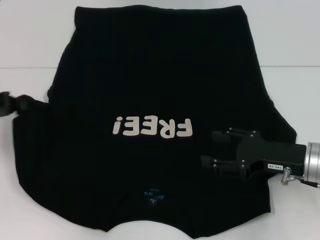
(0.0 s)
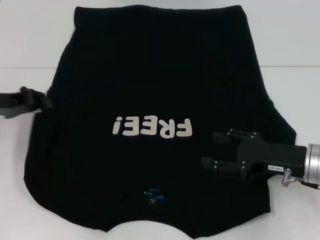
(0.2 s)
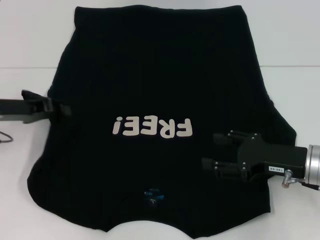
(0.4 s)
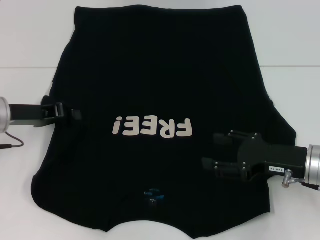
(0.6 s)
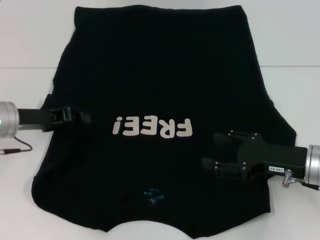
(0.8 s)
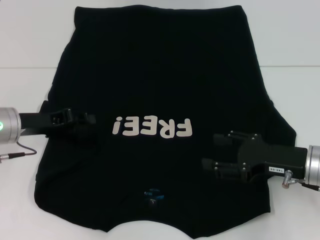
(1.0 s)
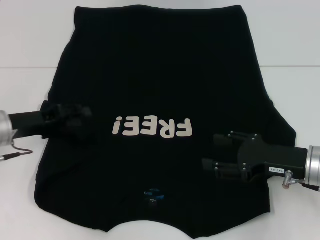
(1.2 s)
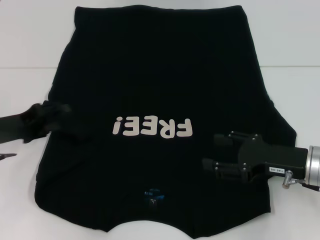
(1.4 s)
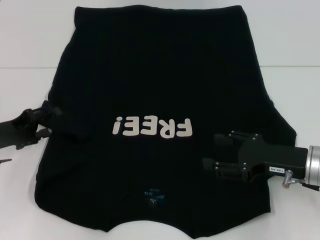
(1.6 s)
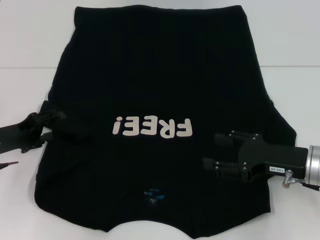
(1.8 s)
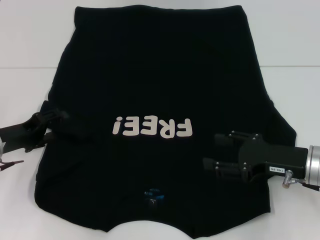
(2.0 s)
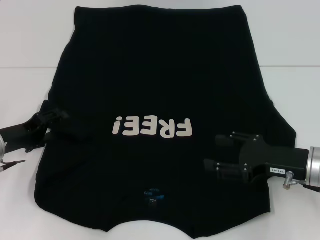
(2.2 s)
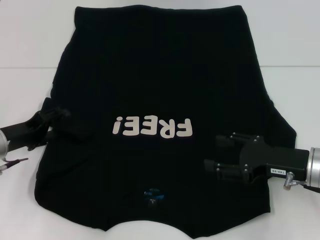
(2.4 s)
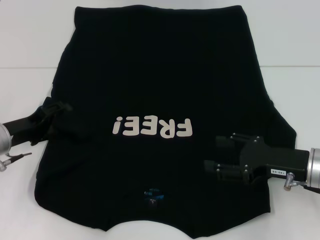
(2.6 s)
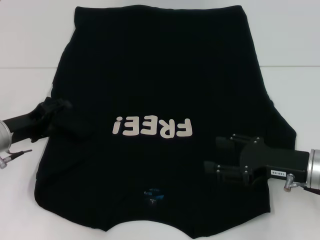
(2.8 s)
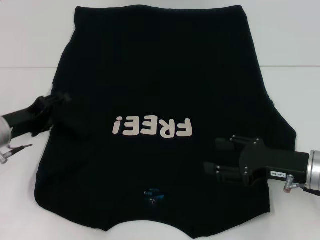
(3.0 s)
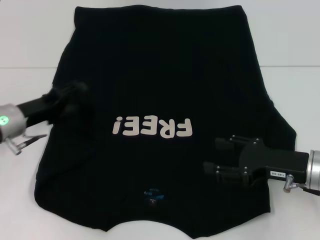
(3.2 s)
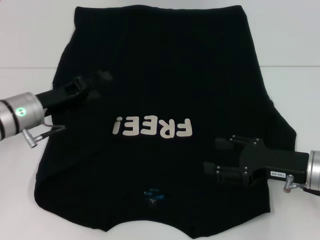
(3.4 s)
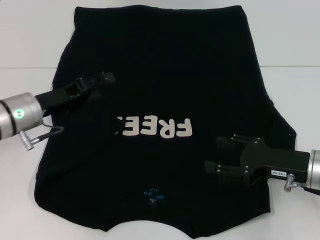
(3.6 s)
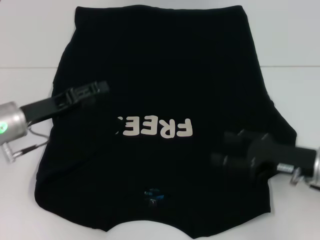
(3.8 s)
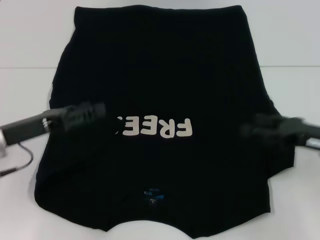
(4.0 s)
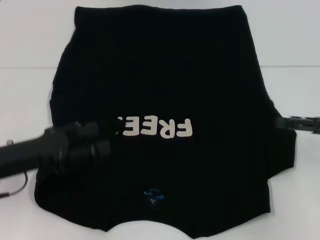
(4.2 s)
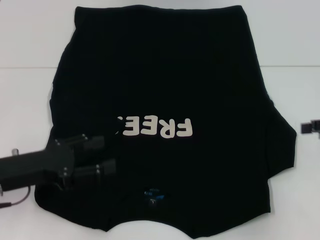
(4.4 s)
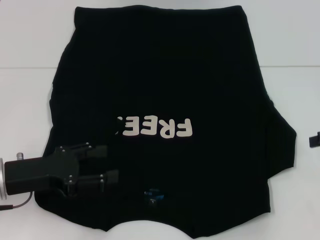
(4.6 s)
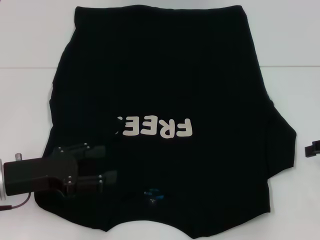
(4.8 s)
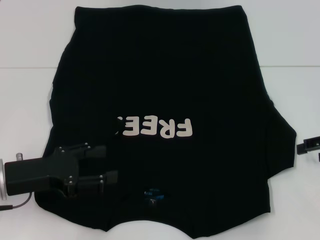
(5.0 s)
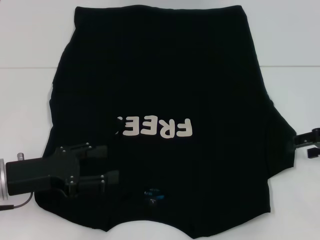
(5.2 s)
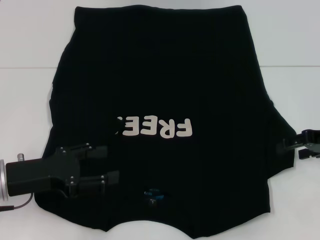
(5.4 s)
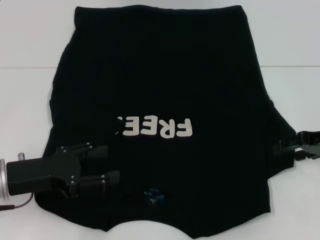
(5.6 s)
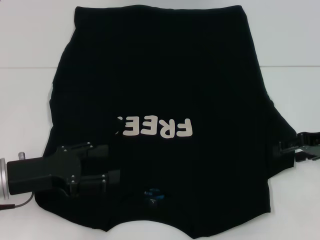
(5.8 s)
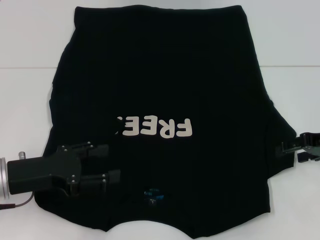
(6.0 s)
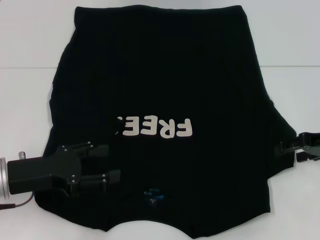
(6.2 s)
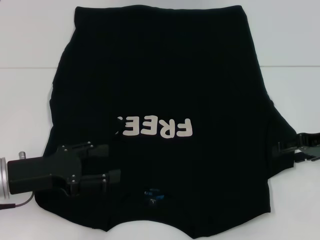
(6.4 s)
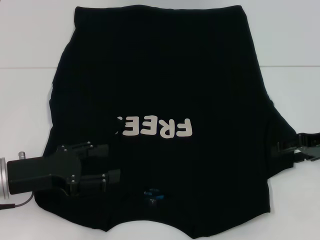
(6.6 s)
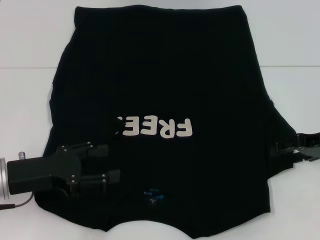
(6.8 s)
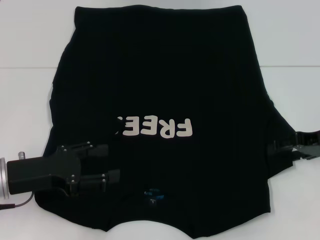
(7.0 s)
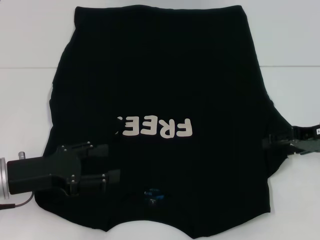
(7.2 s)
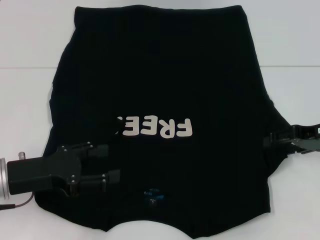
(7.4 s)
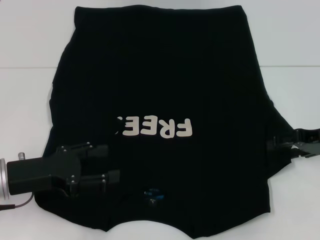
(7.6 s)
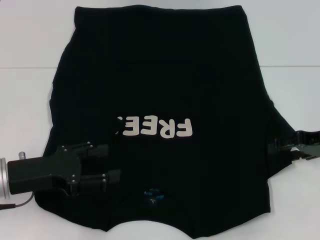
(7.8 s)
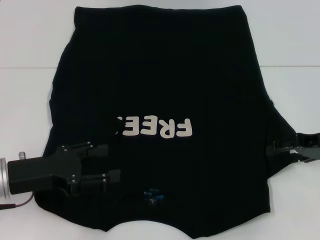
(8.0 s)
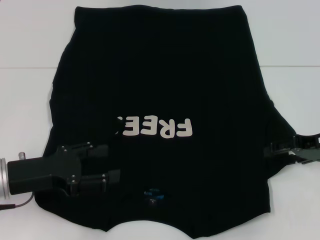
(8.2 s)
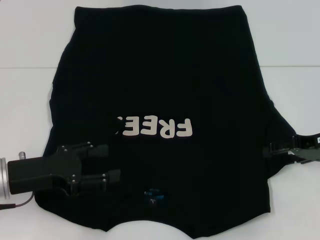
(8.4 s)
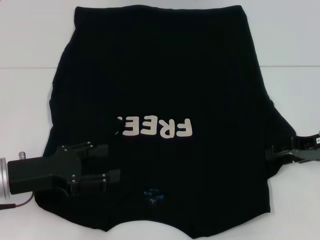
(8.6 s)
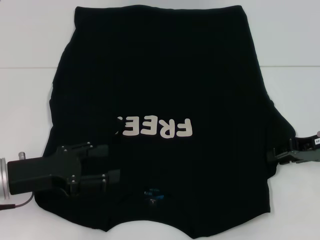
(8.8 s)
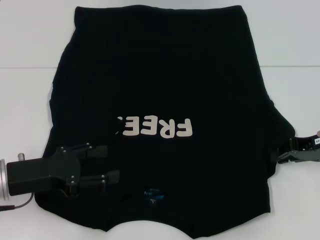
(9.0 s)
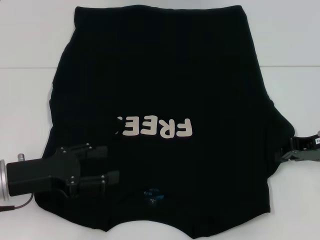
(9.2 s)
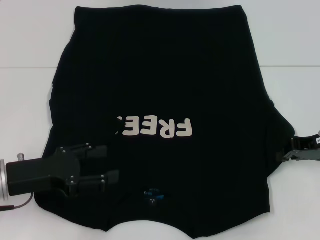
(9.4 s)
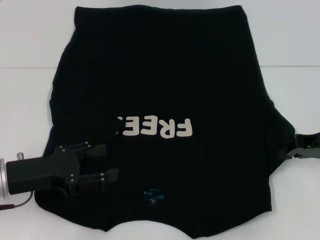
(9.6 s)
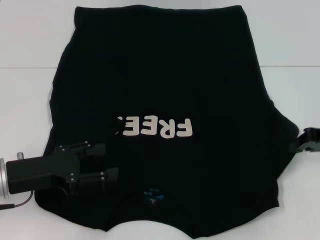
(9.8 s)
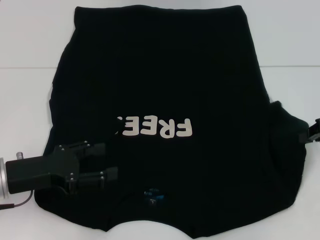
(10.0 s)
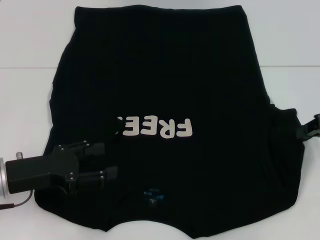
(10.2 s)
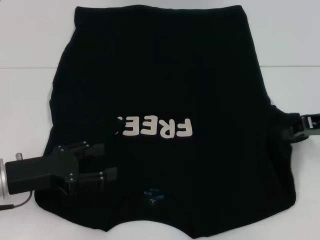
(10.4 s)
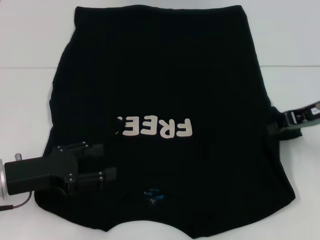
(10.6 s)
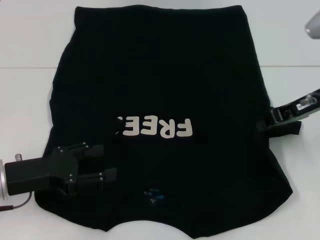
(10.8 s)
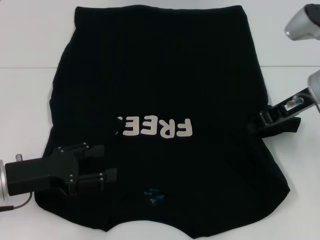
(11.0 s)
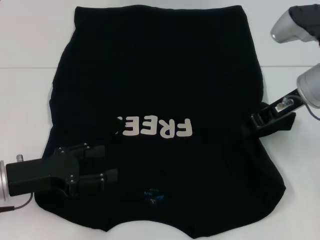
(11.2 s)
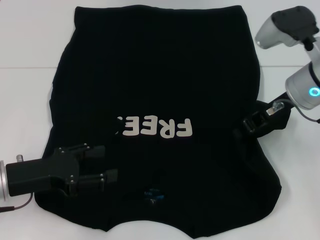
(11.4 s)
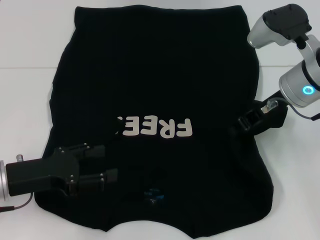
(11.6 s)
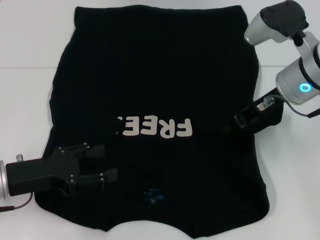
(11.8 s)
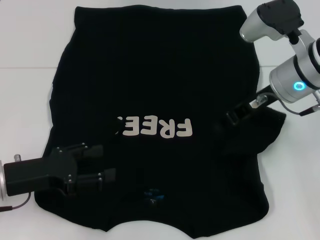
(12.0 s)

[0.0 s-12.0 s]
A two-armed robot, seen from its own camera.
Step, 0.0 to 3.6 s: Fold the bottom left sleeve with your left hand.
0.0 to 1.6 s: The left gripper heads downward, covering about 5 cm, and opens its fingers.
1.6 to 3.0 s: There are only small adjustments of the grippers.
3.0 to 4.4 s: The right gripper is displaced to the right and upward by approximately 15 cm. Meanwhile the left gripper goes roughly 10 cm backward.
4.4 to 6.0 s: The right gripper changes place by some 5 cm.
6.0 to 7.6 s: The grippers make only small movements.
7.6 to 9.0 s: The right gripper closes its fingers.
9.0 to 10.4 s: The right gripper shifts about 5 cm upward, and closes its fingers.
10.4 to 12.0 s: The right gripper moves to the left, about 15 cm.

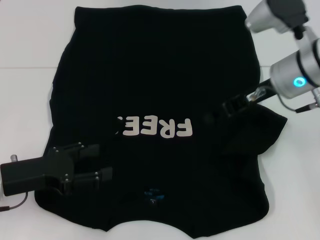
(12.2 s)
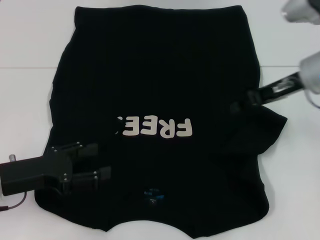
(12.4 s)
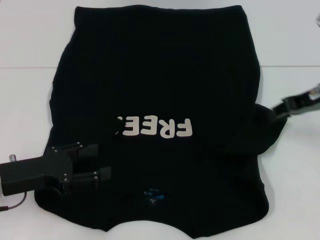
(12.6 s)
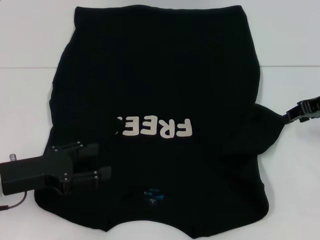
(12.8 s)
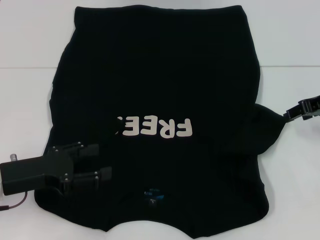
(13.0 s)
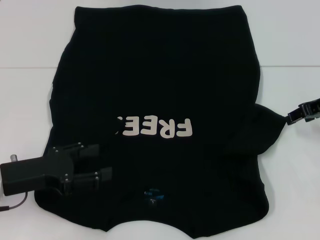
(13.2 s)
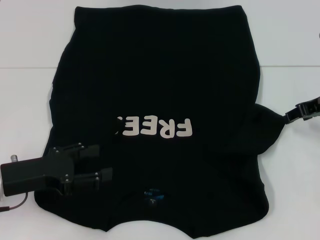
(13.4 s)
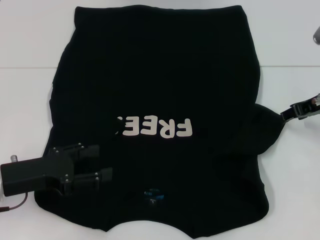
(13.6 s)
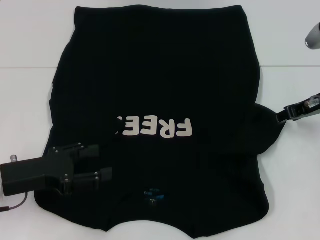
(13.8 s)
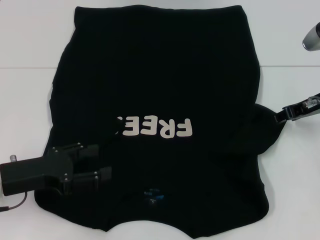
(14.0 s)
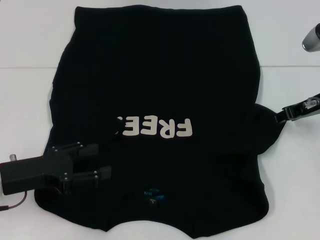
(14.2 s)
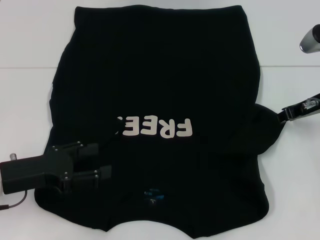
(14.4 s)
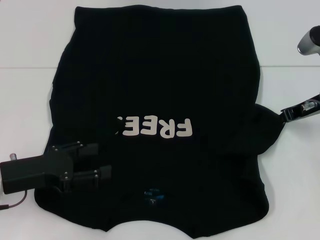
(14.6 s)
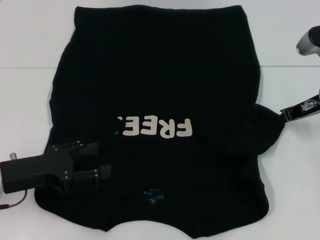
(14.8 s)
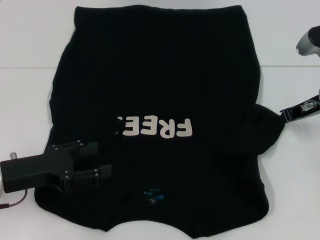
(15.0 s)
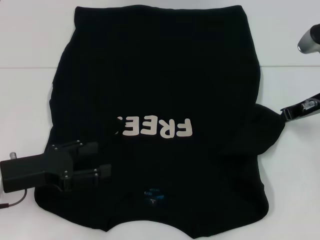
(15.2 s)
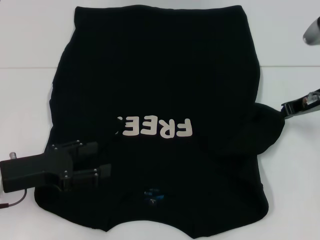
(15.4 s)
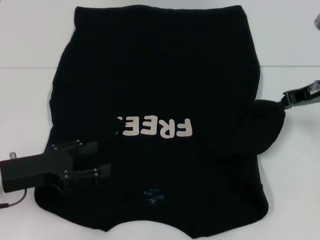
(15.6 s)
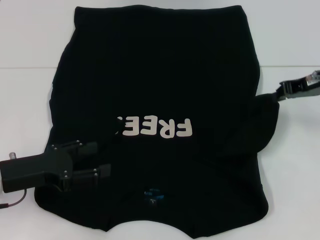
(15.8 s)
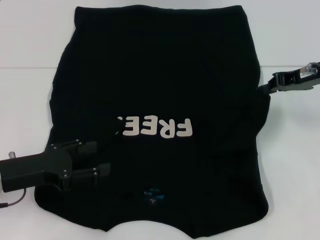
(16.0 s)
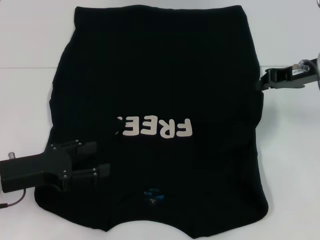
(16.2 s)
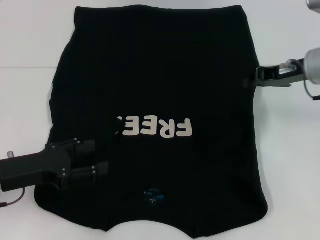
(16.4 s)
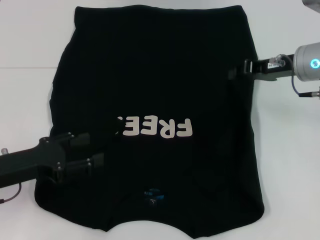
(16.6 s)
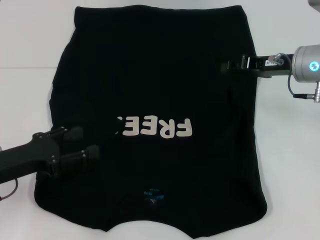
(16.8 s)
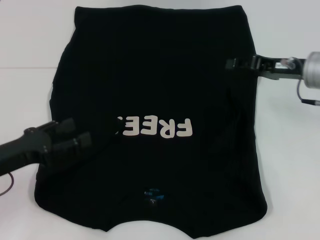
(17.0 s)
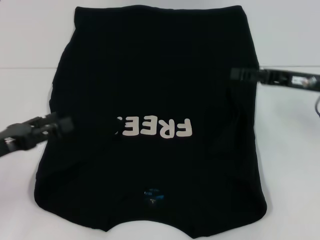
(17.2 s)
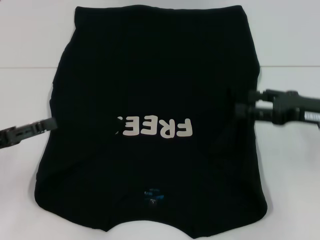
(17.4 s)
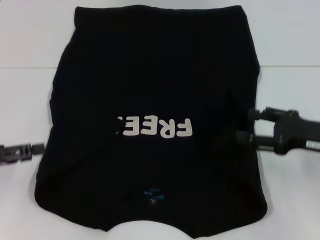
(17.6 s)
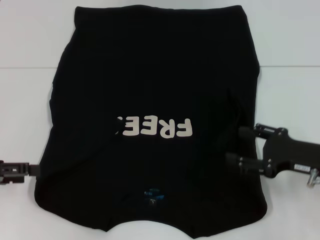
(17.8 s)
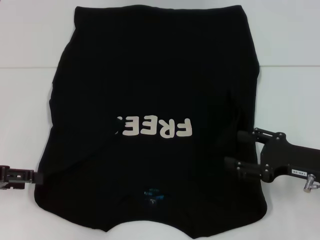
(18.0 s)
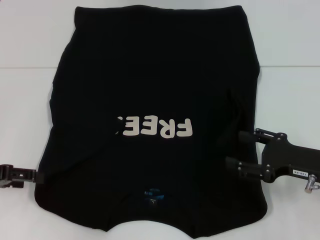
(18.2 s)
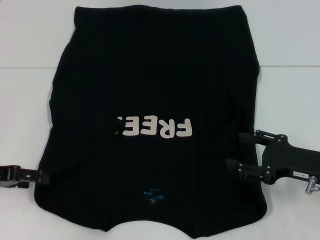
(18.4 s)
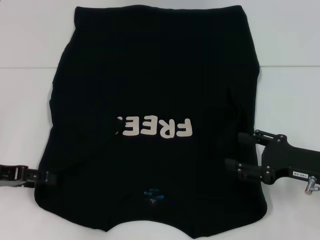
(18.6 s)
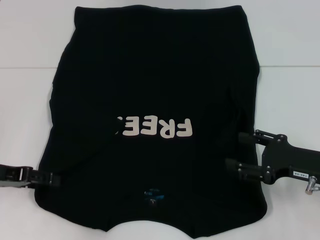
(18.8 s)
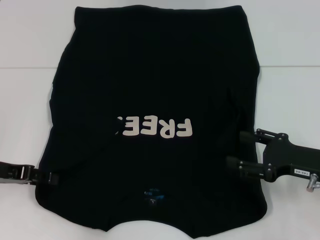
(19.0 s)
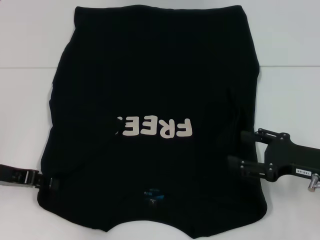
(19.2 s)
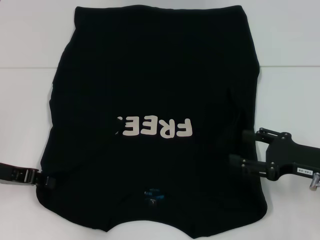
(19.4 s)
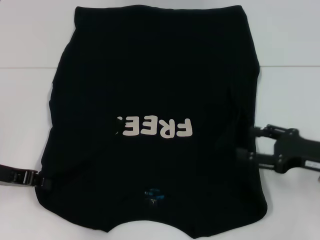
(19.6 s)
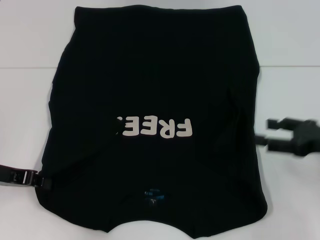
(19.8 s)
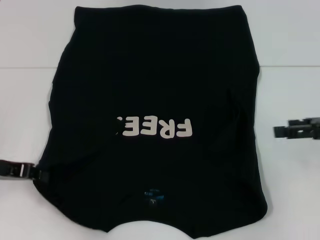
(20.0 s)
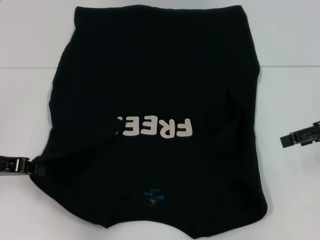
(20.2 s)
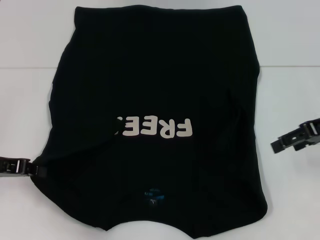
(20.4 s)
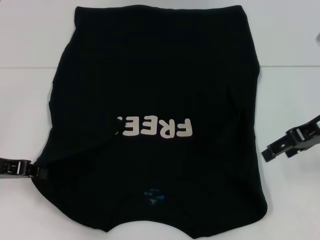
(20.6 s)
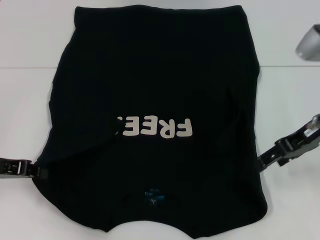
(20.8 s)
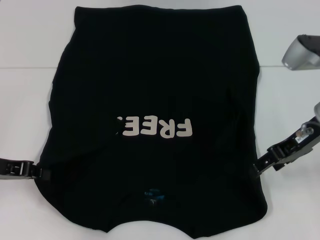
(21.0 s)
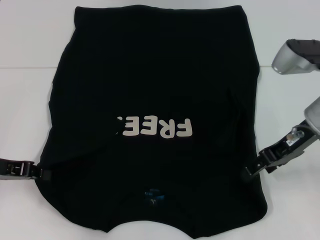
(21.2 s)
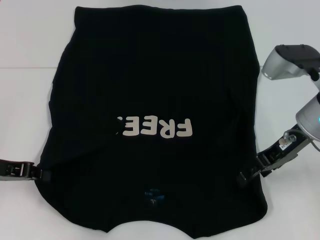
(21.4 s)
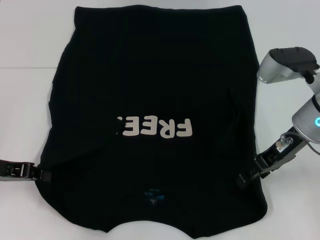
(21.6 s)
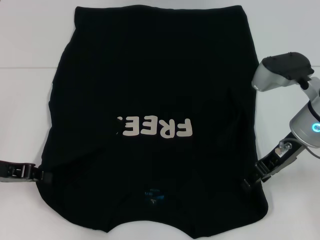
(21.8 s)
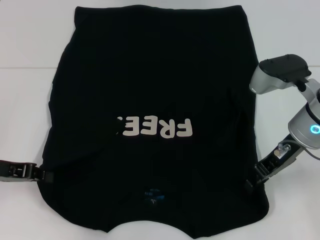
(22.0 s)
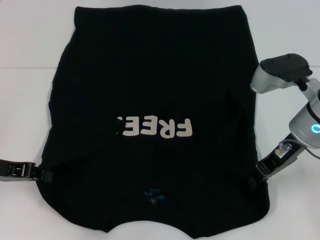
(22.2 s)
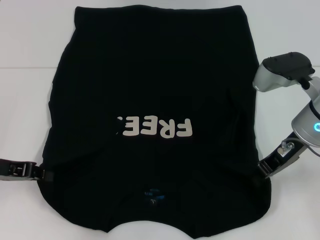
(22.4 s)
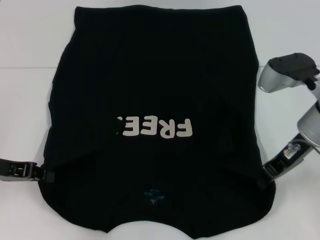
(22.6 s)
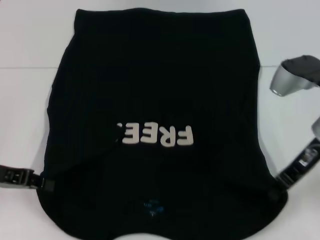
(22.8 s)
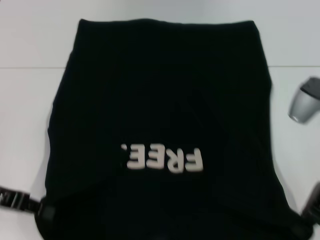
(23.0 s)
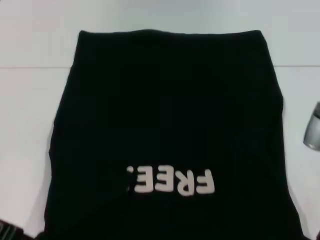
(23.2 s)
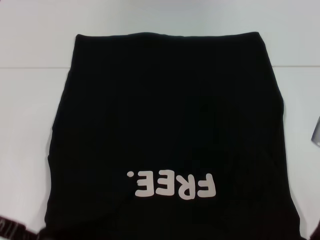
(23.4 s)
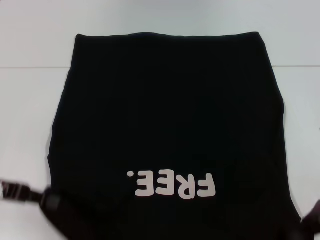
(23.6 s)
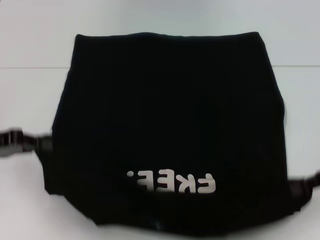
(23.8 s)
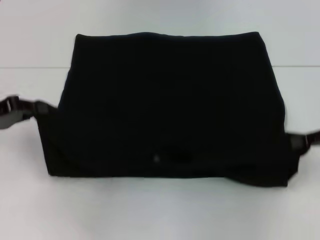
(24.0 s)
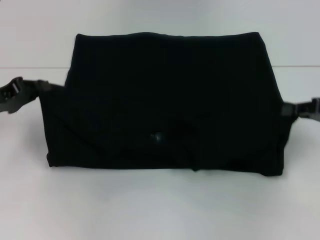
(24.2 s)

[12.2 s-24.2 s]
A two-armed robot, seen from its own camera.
Step, 12.2 to 17.0 s: Fold the bottom right sleeve with your right hand.
Step, 17.2 to 19.8 s: Grab the bottom left corner with your left hand.
Step, 20.0 to 22.4 s: Grab the bottom right corner with your right hand.
12.2 to 13.8 s: The right gripper travels to the right by about 10 cm, and opens its fingers.
13.8 to 15.2 s: The right gripper closes its fingers.
16.6 to 18.2 s: The right gripper heads backward and downward, covering approximately 15 cm, and opens, while the left gripper goes roughly 5 cm to the left.
18.2 to 19.8 s: The left gripper closes; the right gripper shifts by some 5 cm.
19.8 to 21.2 s: The right gripper shifts about 15 cm to the left, forward and upward.
21.2 to 22.6 s: The right gripper closes up.
22.6 to 24.2 s: The right gripper goes approximately 15 cm to the right.
